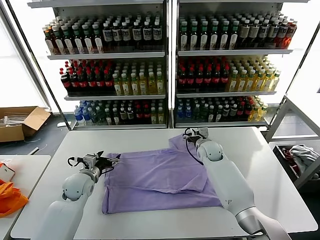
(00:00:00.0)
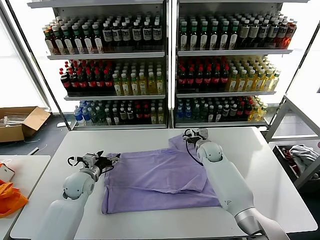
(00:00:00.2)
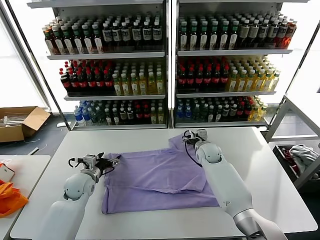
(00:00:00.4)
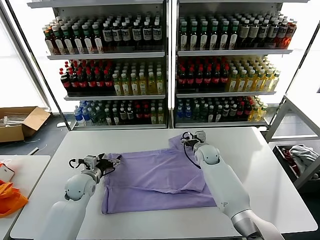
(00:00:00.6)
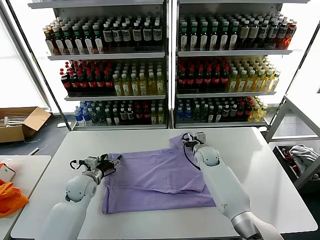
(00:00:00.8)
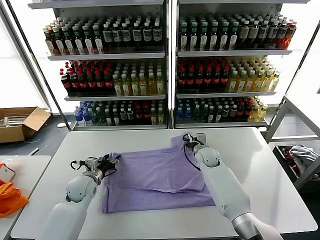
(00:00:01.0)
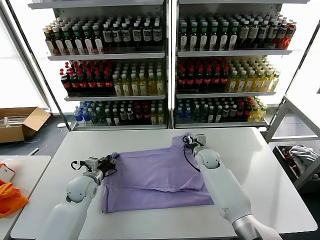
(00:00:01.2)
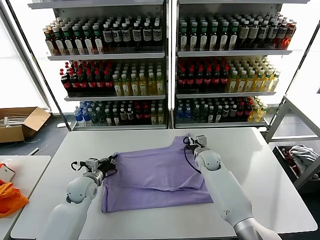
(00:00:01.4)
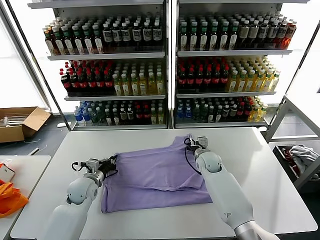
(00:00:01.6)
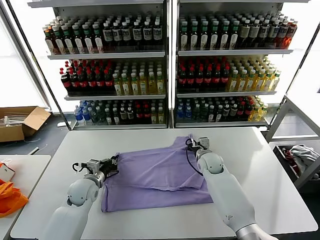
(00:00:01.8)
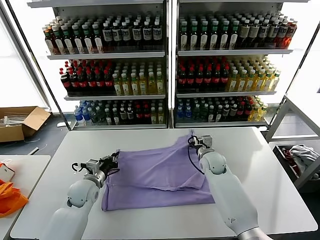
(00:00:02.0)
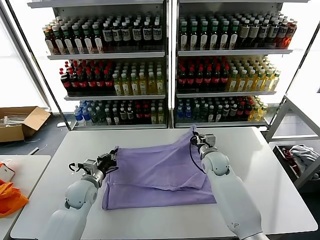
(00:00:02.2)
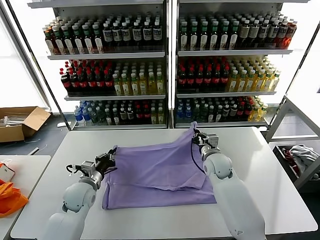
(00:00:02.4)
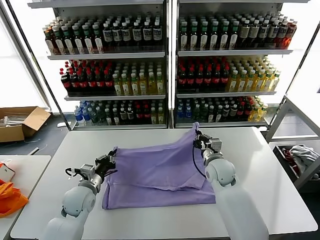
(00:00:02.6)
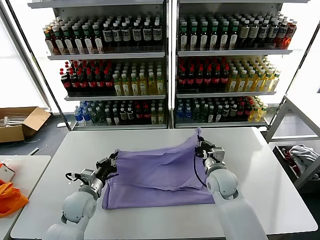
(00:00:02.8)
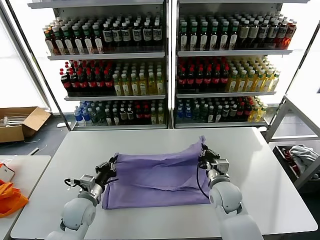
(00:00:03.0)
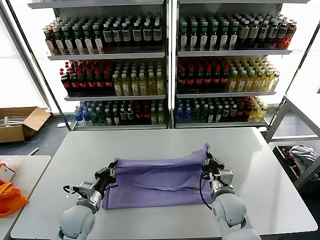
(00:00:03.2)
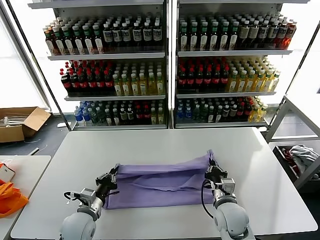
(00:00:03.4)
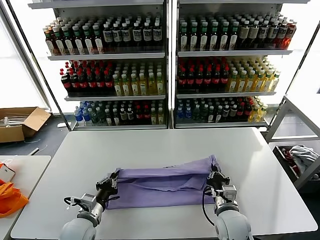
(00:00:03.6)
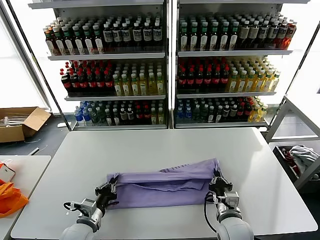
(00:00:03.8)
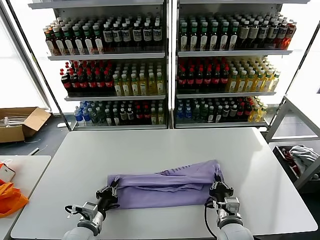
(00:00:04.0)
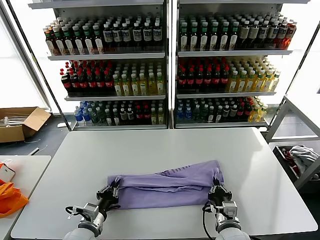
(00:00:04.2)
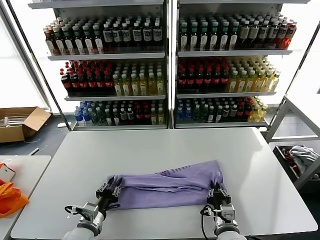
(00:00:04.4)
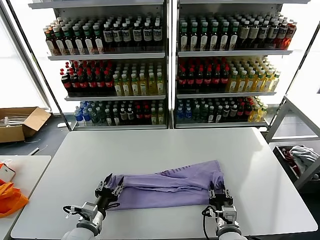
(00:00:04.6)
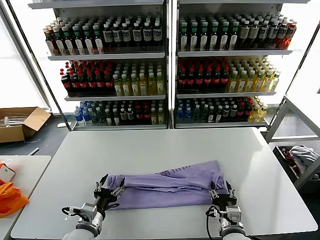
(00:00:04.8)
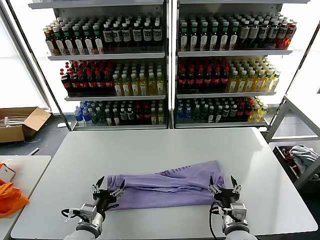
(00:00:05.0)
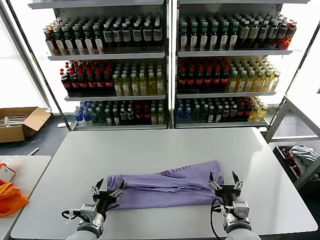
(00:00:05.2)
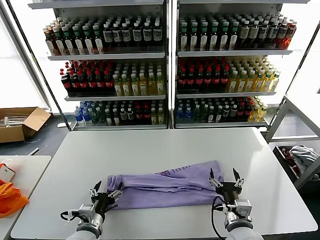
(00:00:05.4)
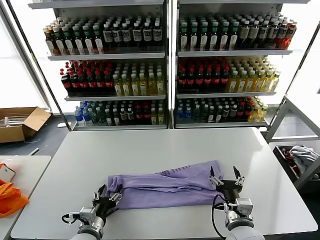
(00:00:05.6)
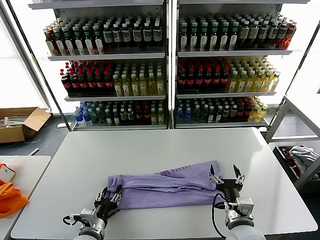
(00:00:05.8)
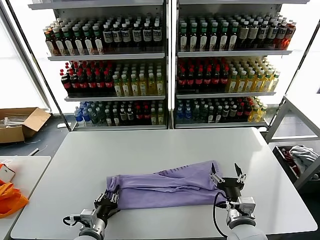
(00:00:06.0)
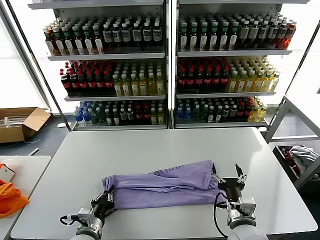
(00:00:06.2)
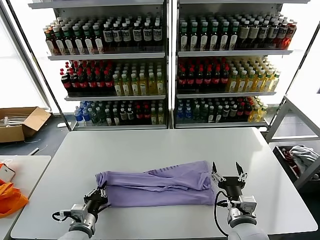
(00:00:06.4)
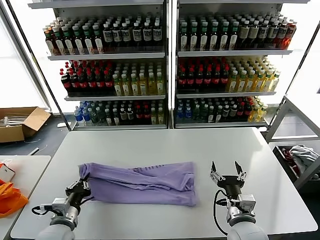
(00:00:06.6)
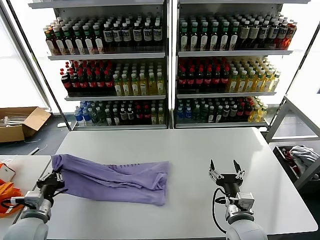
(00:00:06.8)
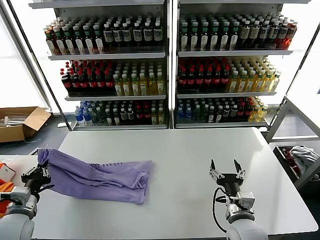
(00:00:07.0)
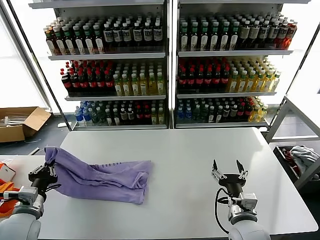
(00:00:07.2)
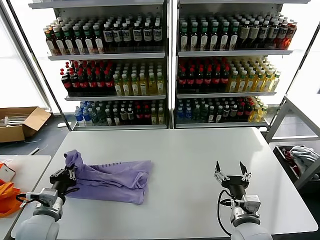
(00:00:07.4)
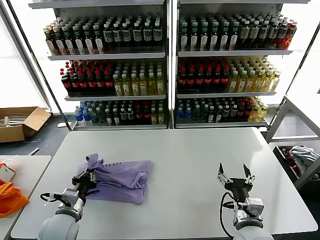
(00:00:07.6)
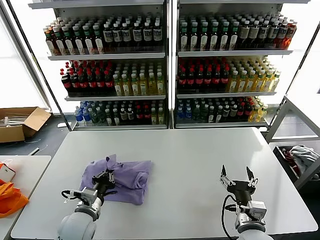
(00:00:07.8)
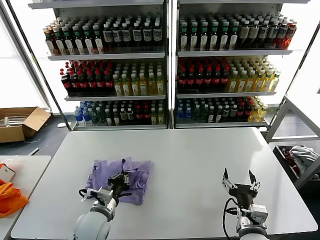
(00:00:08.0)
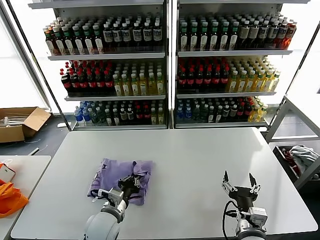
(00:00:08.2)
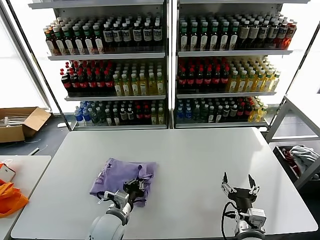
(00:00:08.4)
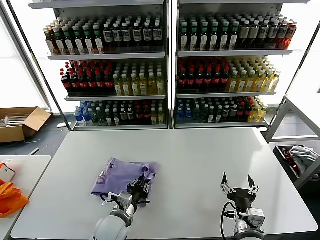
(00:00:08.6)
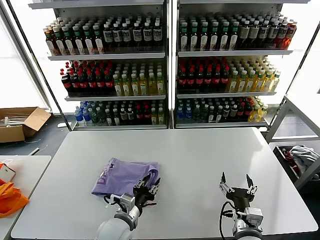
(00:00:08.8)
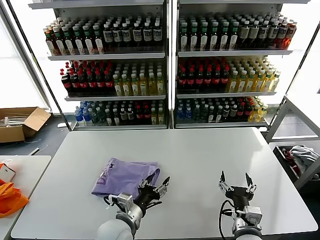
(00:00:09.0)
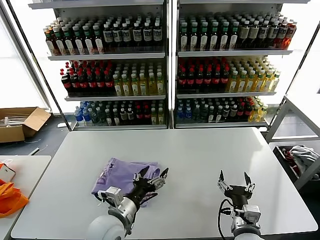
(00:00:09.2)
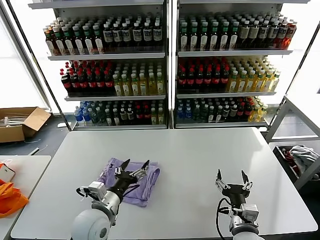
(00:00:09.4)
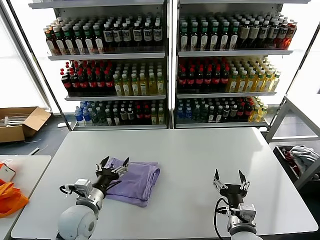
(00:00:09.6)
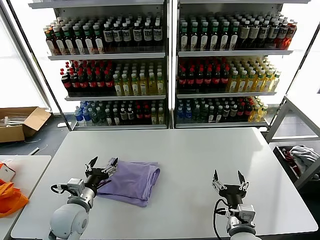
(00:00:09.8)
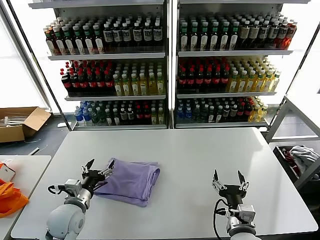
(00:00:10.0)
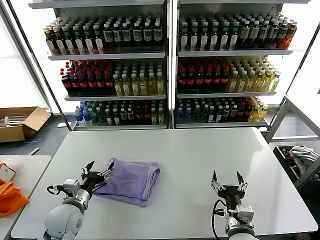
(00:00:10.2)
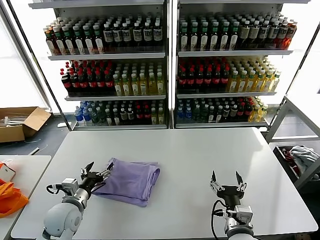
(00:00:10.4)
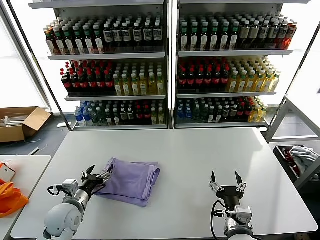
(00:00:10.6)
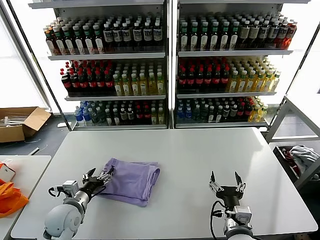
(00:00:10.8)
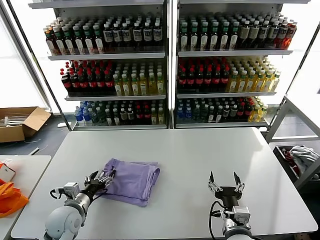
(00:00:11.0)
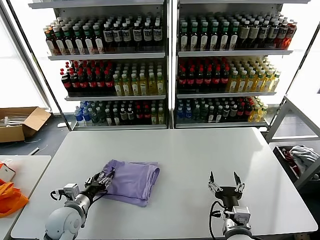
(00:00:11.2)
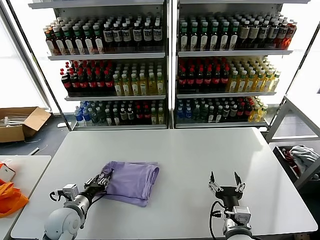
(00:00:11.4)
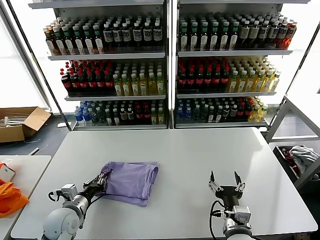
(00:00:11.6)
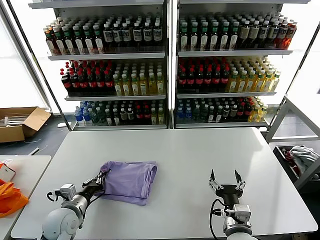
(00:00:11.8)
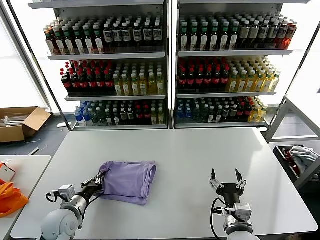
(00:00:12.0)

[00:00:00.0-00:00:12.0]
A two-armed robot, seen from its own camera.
Task of the whole recording: fold and organize the clothes.
Step, 00:00:02.0 to 00:00:04.8: use both grippers to drag the upper edge of the fabric backward and fold it over the lower edge.
Step, 00:00:05.0 to 00:00:06.2: use the left gripper to clamp the left edge of the fabric.
Step, 00:00:06.4 to 00:00:08.8: use the left gripper to drag the left edge of the fabric to the left and folds it over the right edge.
00:00:00.0 to 00:00:01.6: The right gripper closes up; the left gripper closes up.
00:00:01.6 to 00:00:03.0: The left gripper shifts roughly 10 cm backward. The right gripper is displaced backward by about 15 cm.
00:00:03.0 to 00:00:04.4: The two grippers go about 10 cm backward.
00:00:04.4 to 00:00:06.0: The left gripper opens and closes again. The right gripper travels upward by some 5 cm, and opens its fingers.
00:00:06.0 to 00:00:07.6: The left gripper heads to the left and upward, covering some 10 cm, and closes.
00:00:07.6 to 00:00:09.0: The left gripper moves to the right, some 15 cm, and opens.
00:00:09.0 to 00:00:10.4: The left gripper shifts some 15 cm to the left.
00:00:10.4 to 00:00:12.0: The left gripper closes.

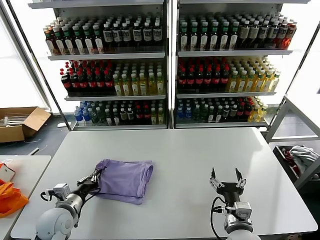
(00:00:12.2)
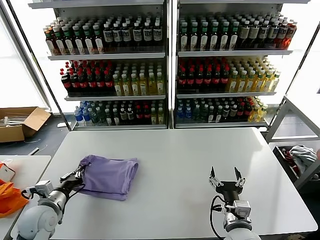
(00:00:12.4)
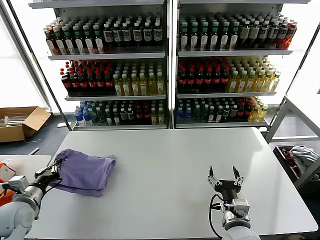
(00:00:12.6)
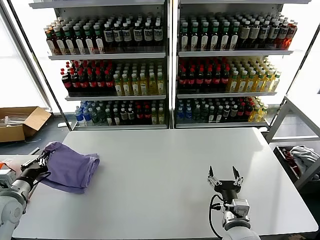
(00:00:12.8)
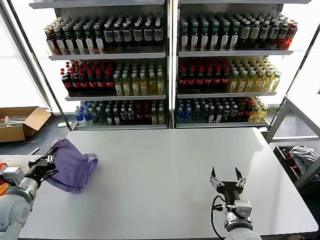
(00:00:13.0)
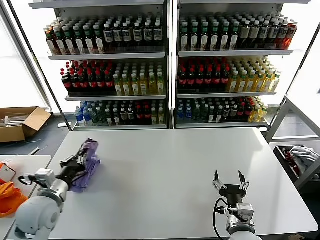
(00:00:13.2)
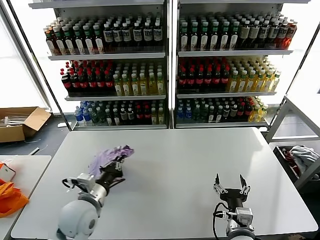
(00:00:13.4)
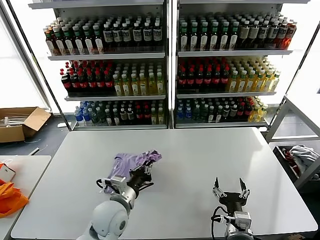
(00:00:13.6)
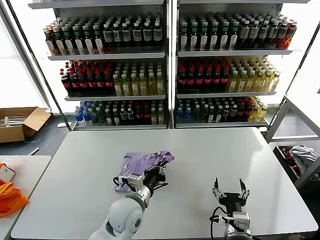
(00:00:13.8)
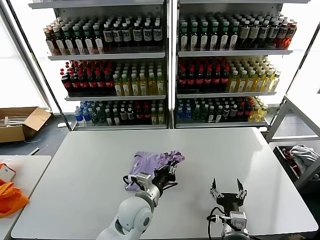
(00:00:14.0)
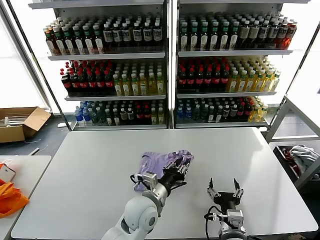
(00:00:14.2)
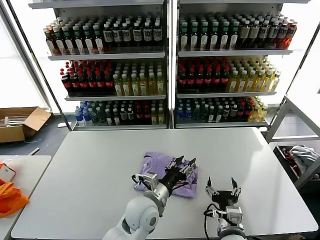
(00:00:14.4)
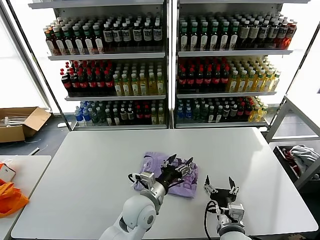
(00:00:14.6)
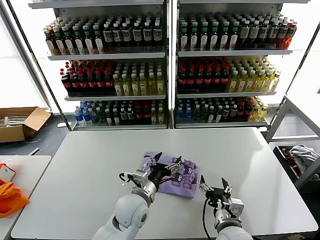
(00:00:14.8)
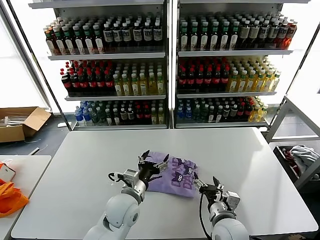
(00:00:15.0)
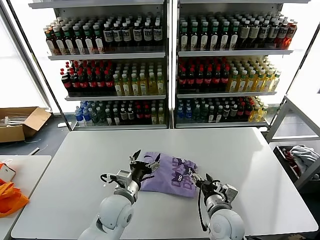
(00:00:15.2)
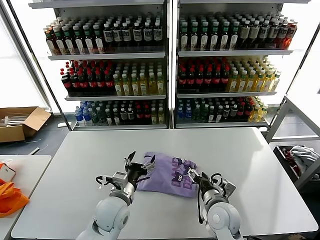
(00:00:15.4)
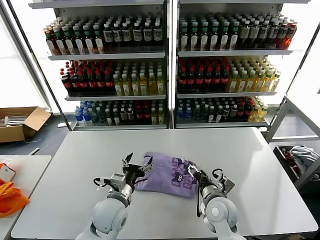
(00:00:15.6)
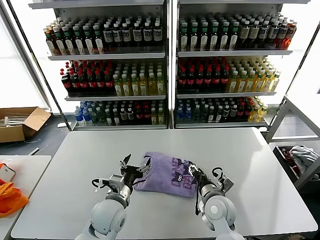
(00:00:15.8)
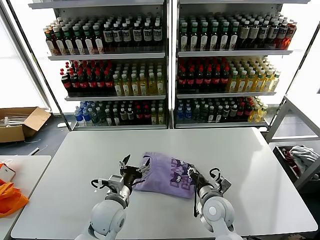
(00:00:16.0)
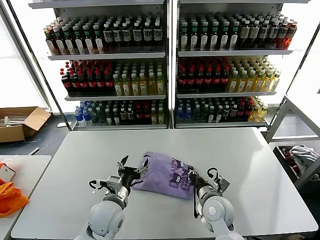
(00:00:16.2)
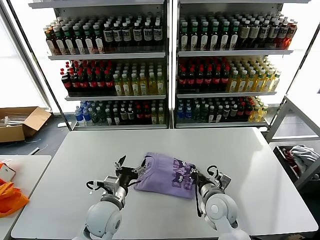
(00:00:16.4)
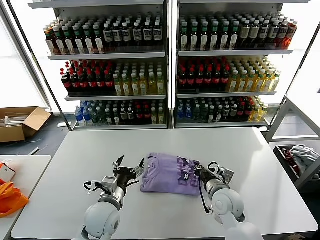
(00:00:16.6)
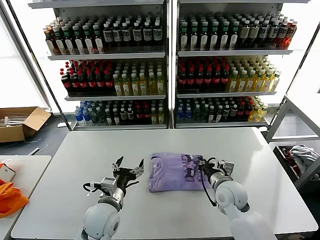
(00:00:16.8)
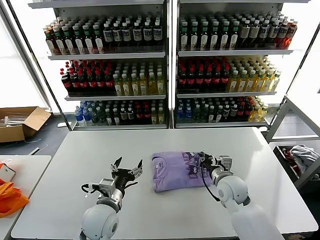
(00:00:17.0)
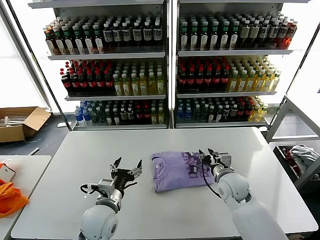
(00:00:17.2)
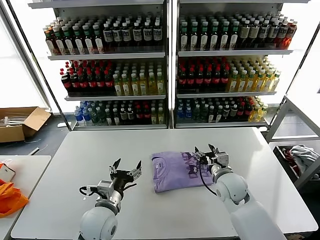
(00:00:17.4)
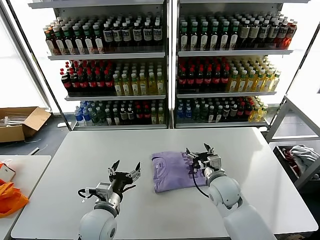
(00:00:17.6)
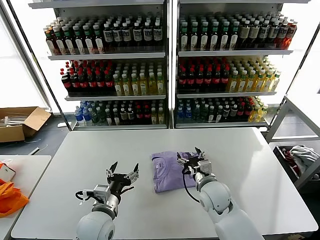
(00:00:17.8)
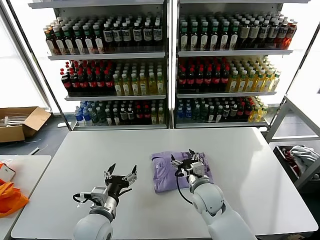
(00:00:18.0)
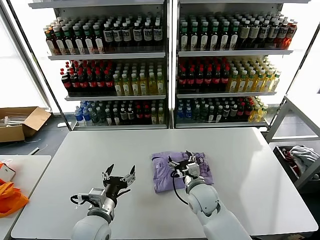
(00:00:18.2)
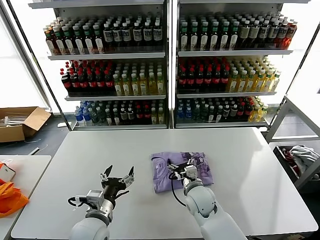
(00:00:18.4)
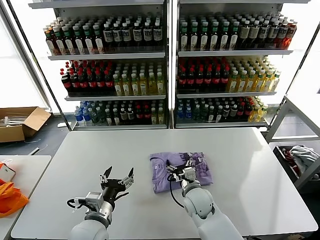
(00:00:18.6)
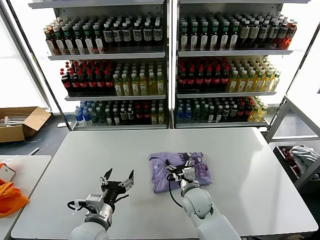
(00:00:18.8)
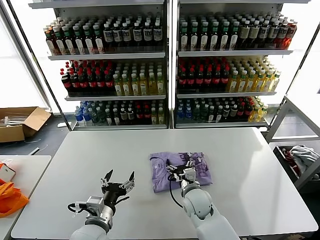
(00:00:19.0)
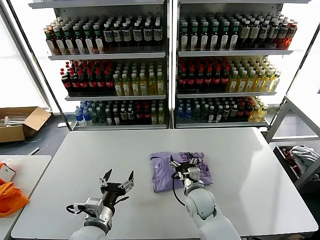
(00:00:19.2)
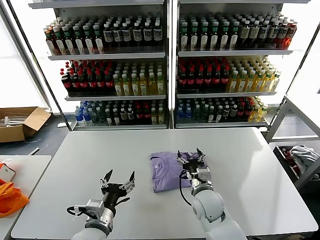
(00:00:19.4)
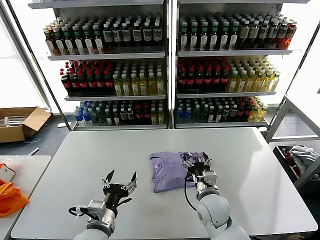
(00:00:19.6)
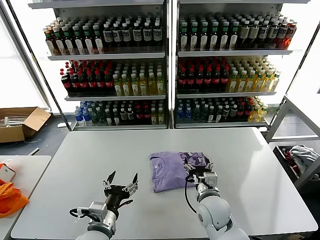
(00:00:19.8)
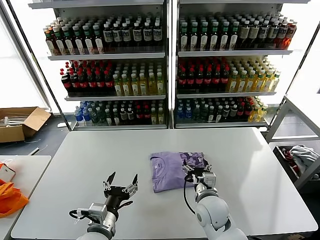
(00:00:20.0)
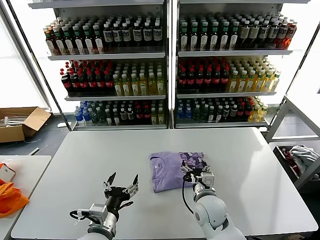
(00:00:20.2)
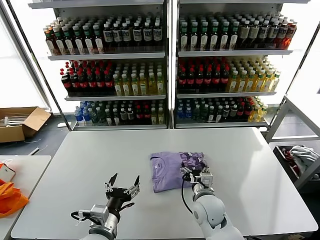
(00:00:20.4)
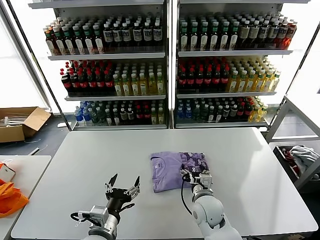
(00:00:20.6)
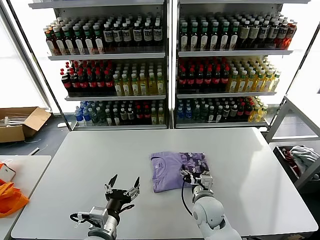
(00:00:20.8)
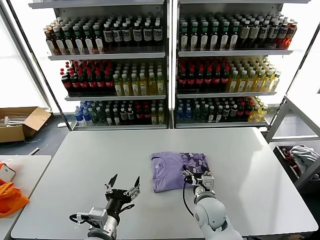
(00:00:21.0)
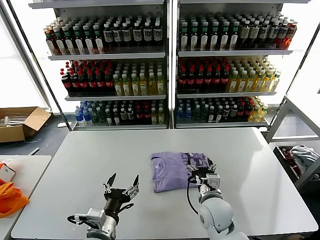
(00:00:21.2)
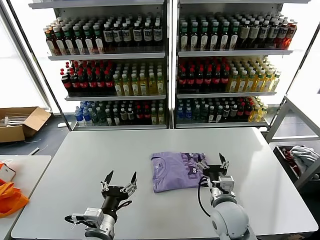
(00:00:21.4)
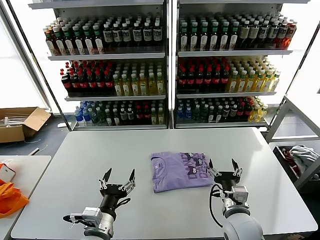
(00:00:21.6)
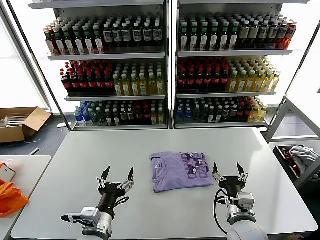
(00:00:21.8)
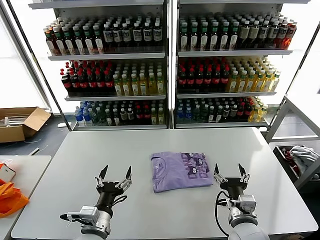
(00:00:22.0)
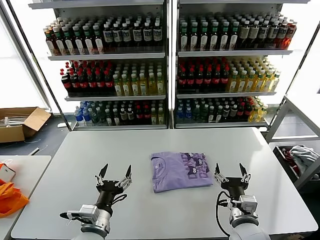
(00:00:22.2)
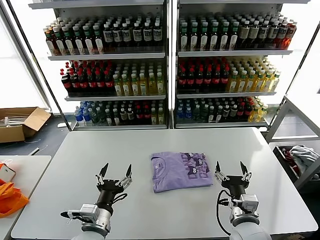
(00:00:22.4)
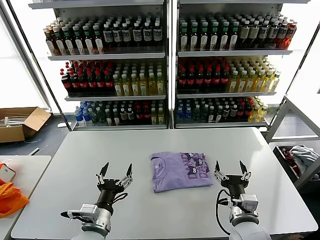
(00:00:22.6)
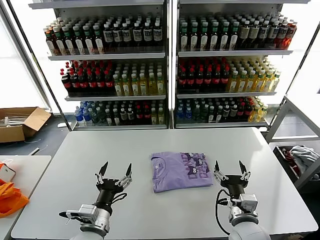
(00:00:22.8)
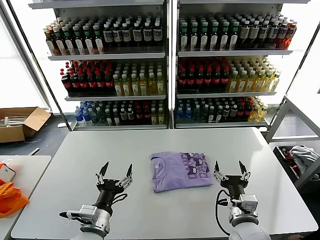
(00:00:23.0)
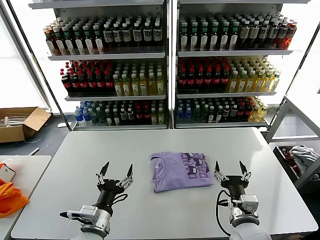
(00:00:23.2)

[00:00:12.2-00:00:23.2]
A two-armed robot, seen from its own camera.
Task of the whole recording: fold and organize the clothes.
Step, 00:00:12.2 to 00:00:14.4: Flip the folded clothes over with left gripper.
Step, 00:00:14.8 to 00:00:21.2: Drag the clothes to the center of the table.
00:00:12.2 to 00:00:13.8: The left gripper shifts some 20 cm to the right.
00:00:13.8 to 00:00:15.4: The right gripper heads forward, covering some 10 cm; the left gripper opens up.
00:00:15.4 to 00:00:17.0: The right gripper travels forward by roughly 10 cm, and closes its fingers.
00:00:17.0 to 00:00:18.4: The right gripper goes roughly 10 cm to the left, and opens up.
00:00:18.4 to 00:00:20.0: The right gripper moves some 5 cm.
00:00:20.0 to 00:00:21.6: The right gripper heads to the right and backward, covering some 10 cm.
00:00:21.6 to 00:00:23.2: The grippers stay close to where they were, moving slightly.
